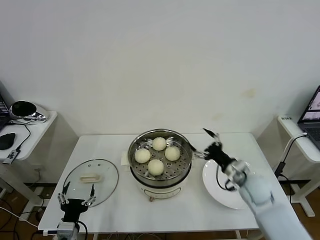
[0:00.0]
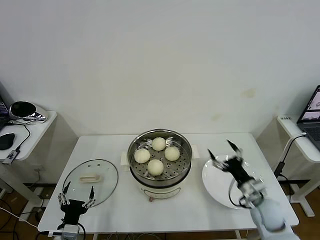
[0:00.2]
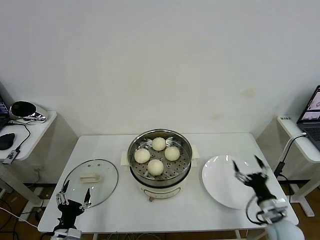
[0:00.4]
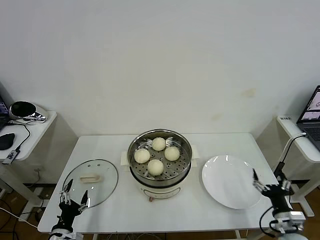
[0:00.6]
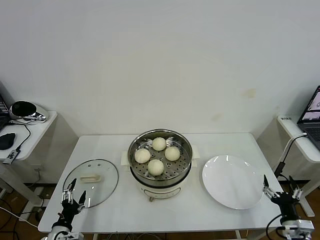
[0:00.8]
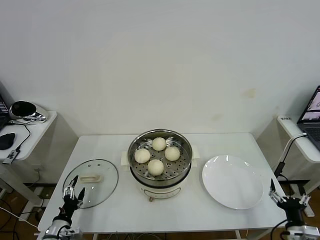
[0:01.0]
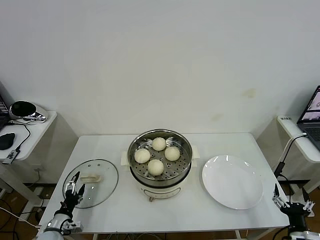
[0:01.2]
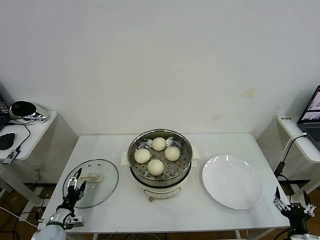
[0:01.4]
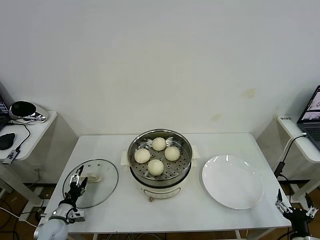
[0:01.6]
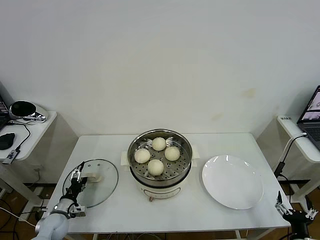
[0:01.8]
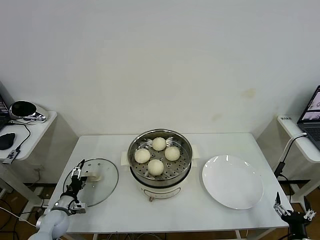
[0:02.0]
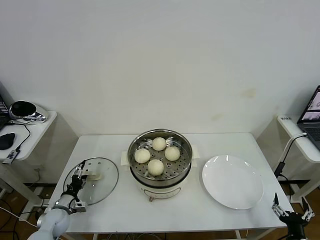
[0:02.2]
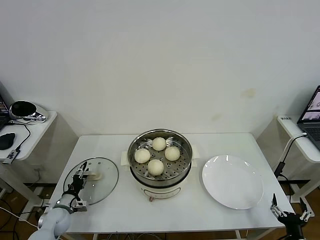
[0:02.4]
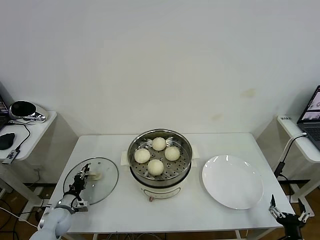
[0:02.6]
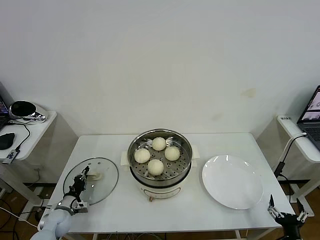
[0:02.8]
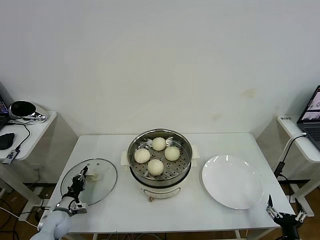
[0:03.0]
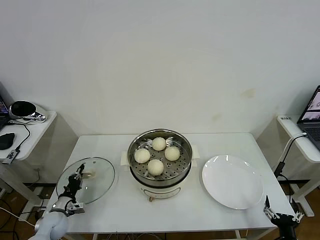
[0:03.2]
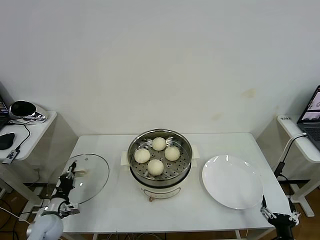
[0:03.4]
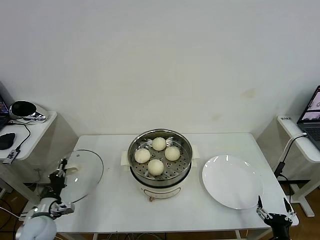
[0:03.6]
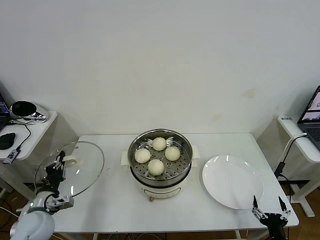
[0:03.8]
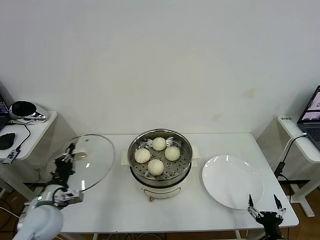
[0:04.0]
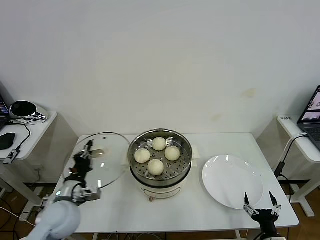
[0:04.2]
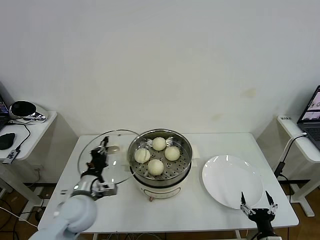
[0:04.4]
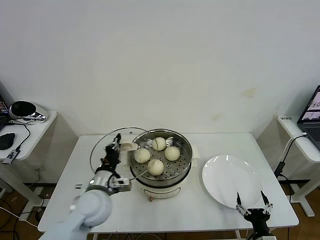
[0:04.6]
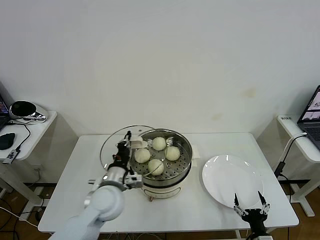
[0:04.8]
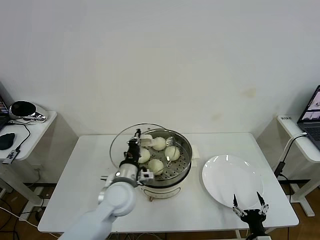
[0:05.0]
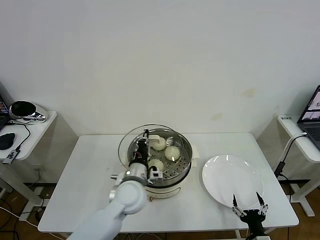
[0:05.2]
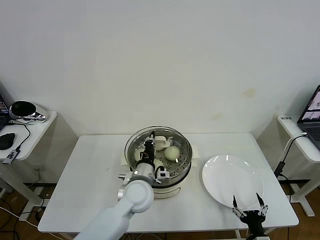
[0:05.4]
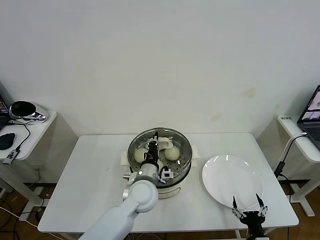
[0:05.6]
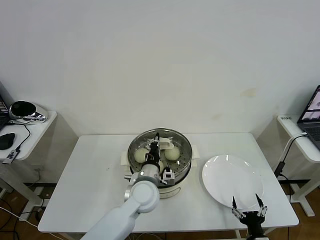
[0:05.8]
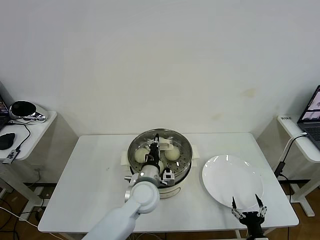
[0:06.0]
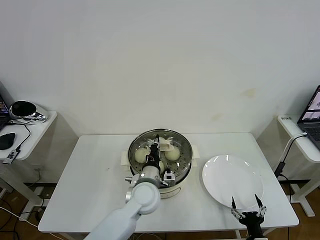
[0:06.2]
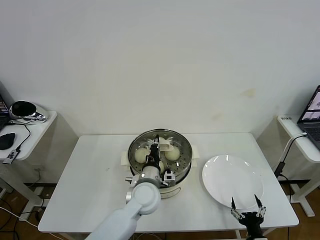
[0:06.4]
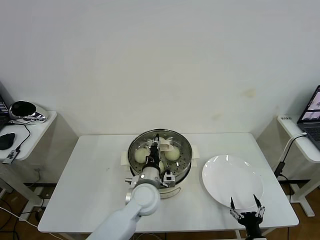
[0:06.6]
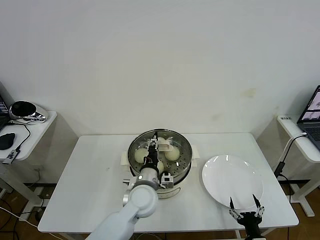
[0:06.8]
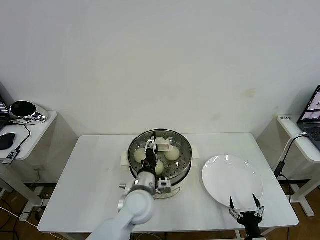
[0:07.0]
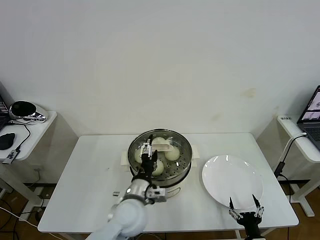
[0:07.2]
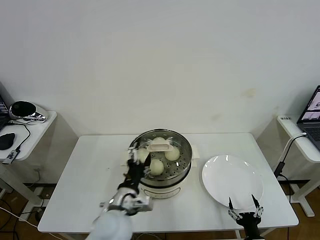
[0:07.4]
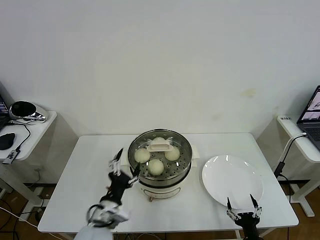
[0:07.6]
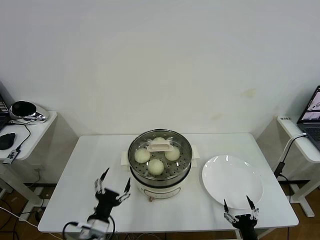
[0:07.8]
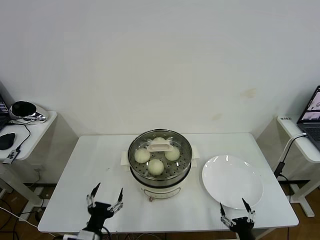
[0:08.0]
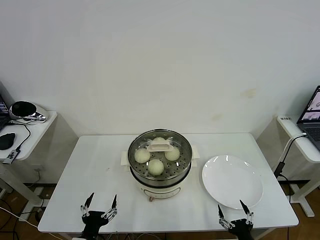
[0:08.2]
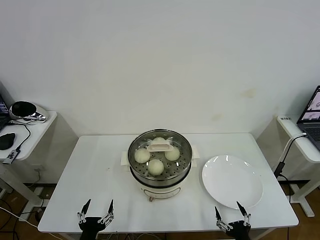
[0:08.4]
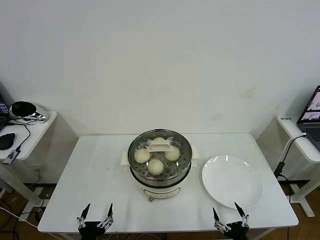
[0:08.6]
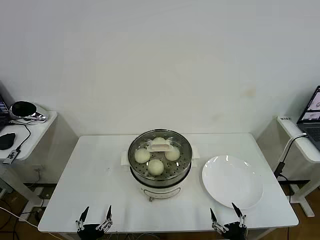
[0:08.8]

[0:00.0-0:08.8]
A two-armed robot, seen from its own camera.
Task of the whole recording: take steamed baozi put them in steamer then cover it.
Step, 0:00.0 to 0:02.8: Grasp the pot lid with left gripper.
Step, 0:03.0 to 0:07.0: Place the pot lid on the steamer with left gripper.
0:00.0 to 0:01.4: The right gripper travels backward, to the right and downward by approximately 30 cm; the left gripper goes approximately 15 cm to the left, downward and forward.
0:01.4 to 0:03.0: The left gripper goes about 5 cm forward, and closes its fingers.
0:03.0 to 0:04.4: The left gripper heads upward and to the right, covering approximately 25 cm, while the right gripper heads to the left, covering roughly 5 cm.
0:04.4 to 0:05.8: The left gripper moves to the right, roughly 20 cm.
0:05.8 to 0:07.4: The left gripper heads backward and to the left, covering some 10 cm, and opens up.
0:07.4 to 0:08.8: The right gripper changes place by about 5 cm; the left gripper shifts some 25 cm backward, to the left and downward.
